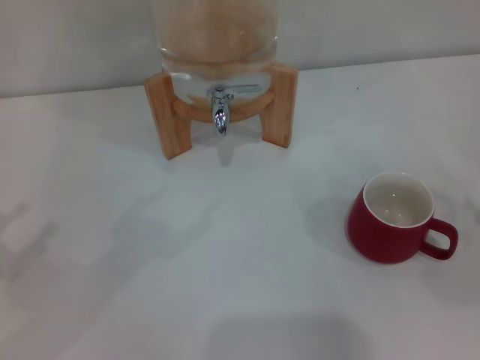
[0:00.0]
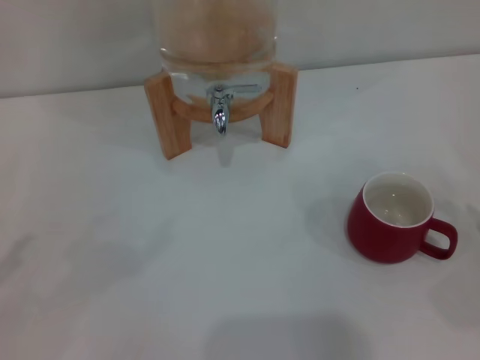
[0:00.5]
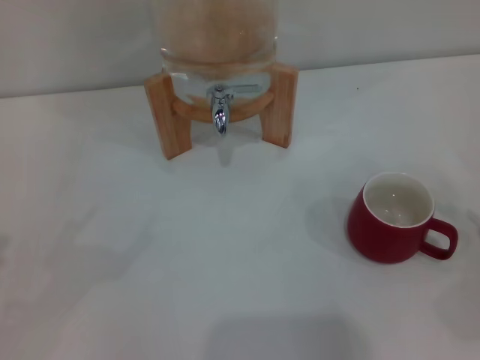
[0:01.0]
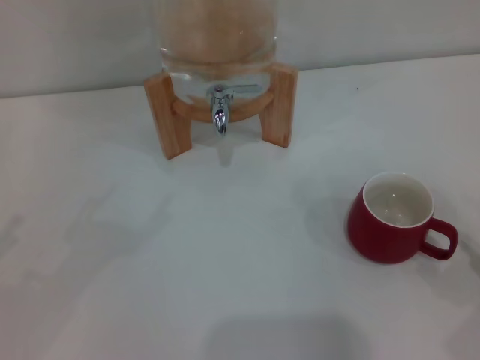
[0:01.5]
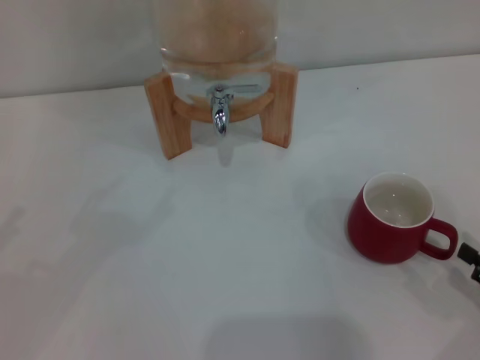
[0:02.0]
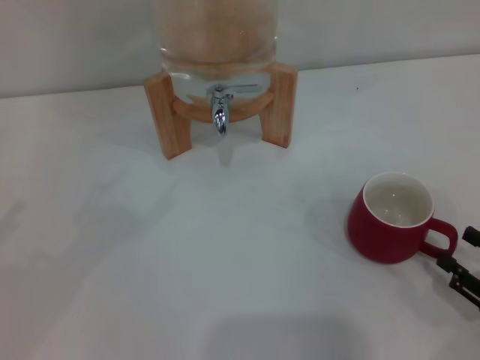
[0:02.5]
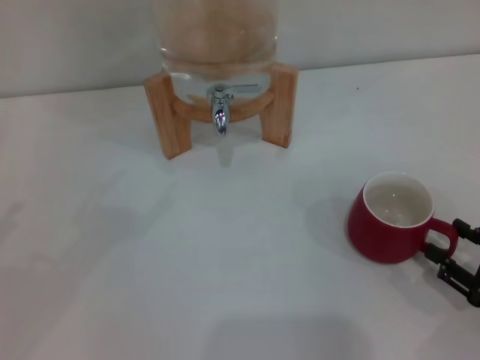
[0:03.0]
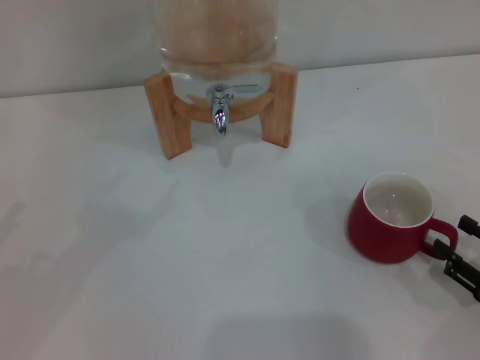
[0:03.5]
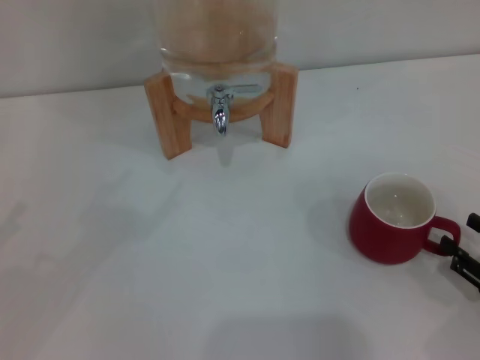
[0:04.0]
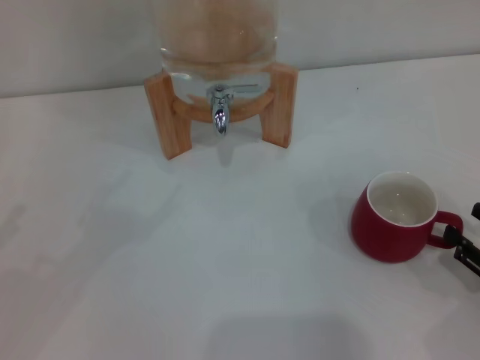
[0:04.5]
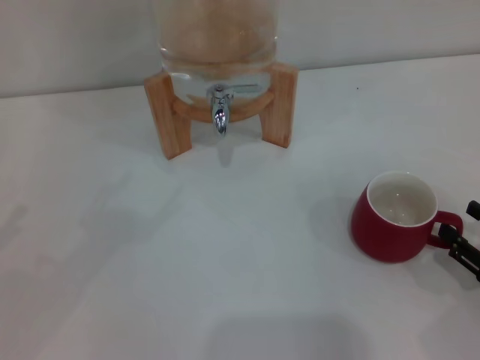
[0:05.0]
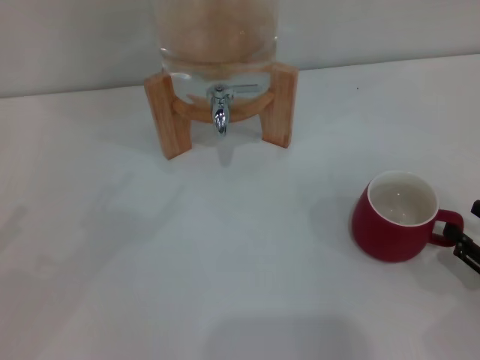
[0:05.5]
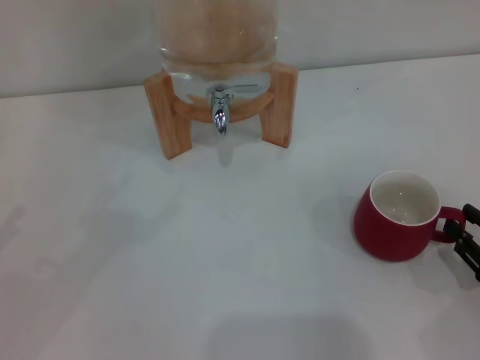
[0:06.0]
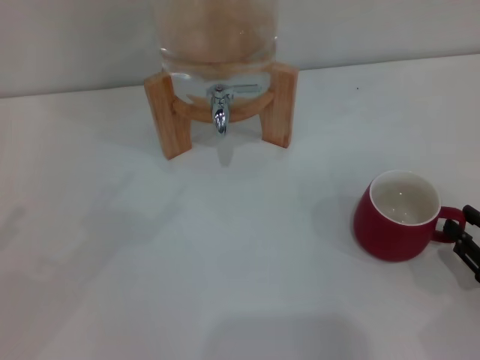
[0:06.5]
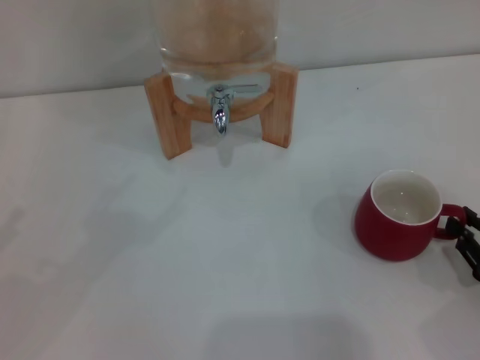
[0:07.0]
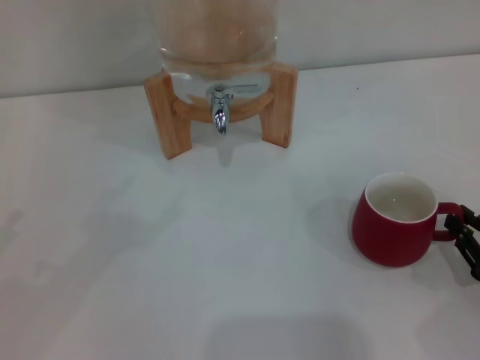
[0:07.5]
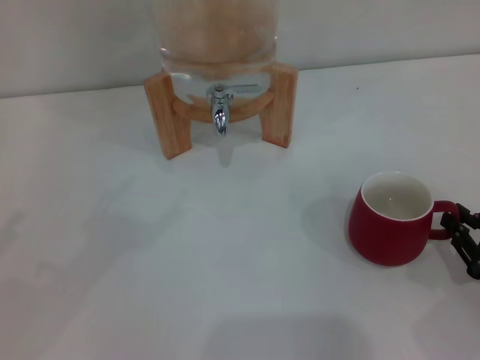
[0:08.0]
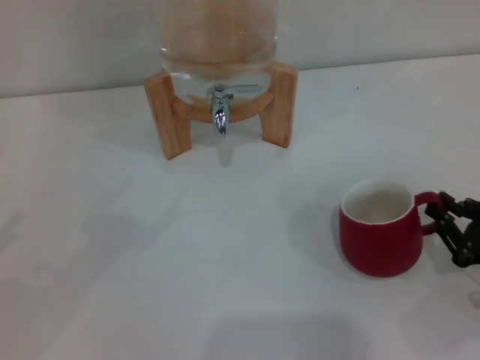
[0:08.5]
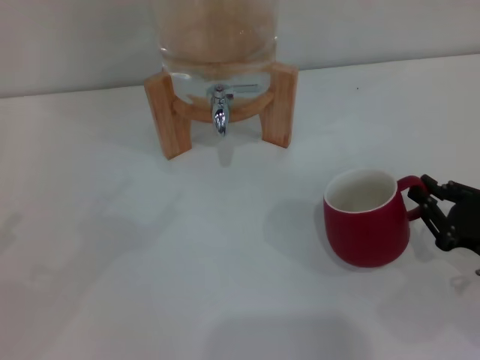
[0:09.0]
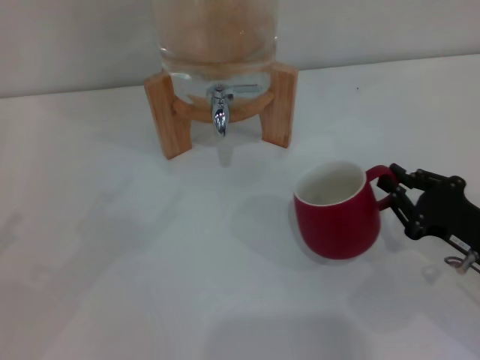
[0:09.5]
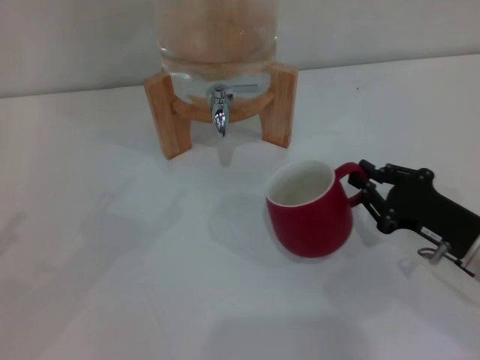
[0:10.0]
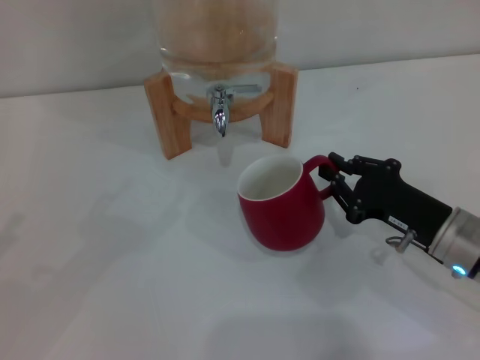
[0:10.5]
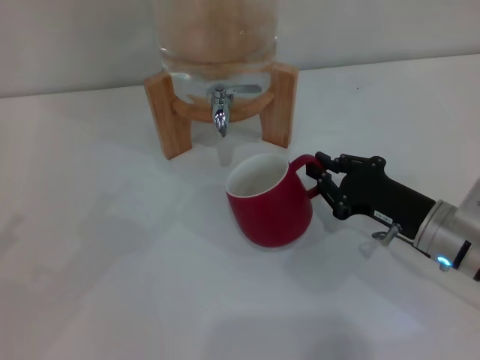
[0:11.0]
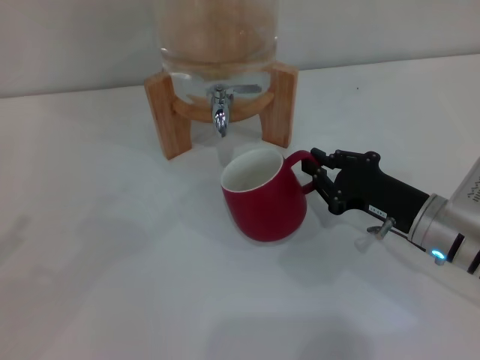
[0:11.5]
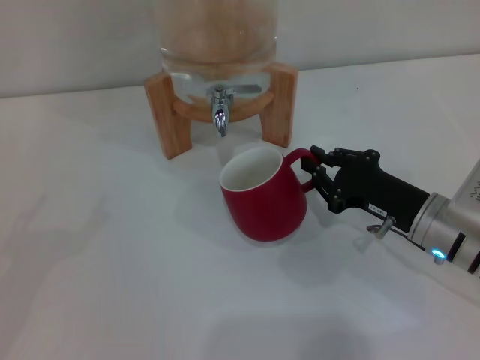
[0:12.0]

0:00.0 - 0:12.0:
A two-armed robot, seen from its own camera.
Task of the whole recording: the right gripper pick up the red cup and place it horizontally under the faucet, the left gripper turn on the faucet to fill the cup, and then turn off the faucet.
0:00.0 - 0:02.0: The right gripper goes roughly 10 cm downward, to the left and backward.
0:02.0 - 0:04.0: The grippers make only small movements.
0:04.0 - 0:06.0: Neither gripper changes place.
0:06.0 - 0:08.0: The right gripper closes up.
0:08.0 - 0:10.0: The right gripper is displaced forward and to the left by approximately 10 cm.
0:10.0 - 0:12.0: The right gripper moves approximately 5 cm.

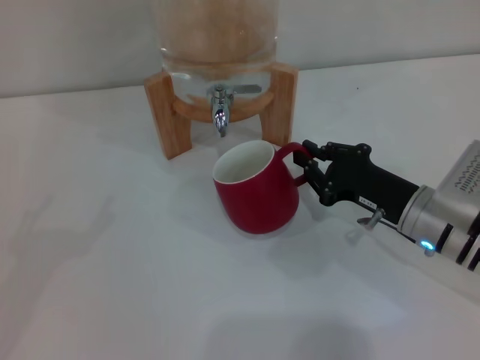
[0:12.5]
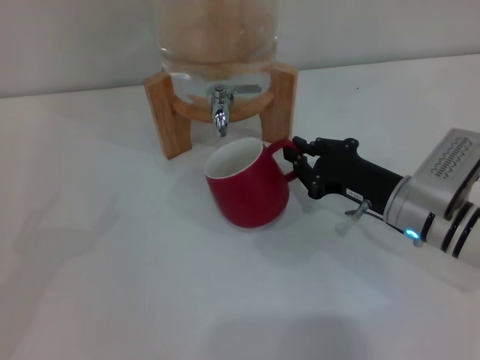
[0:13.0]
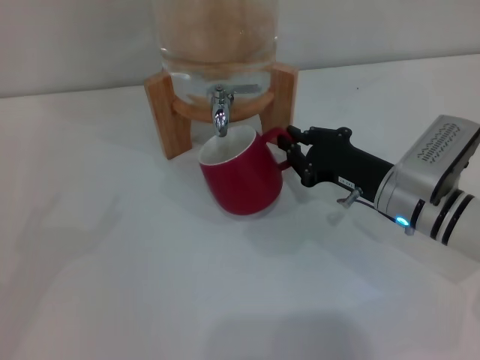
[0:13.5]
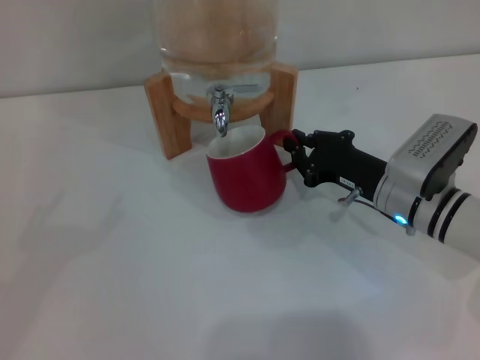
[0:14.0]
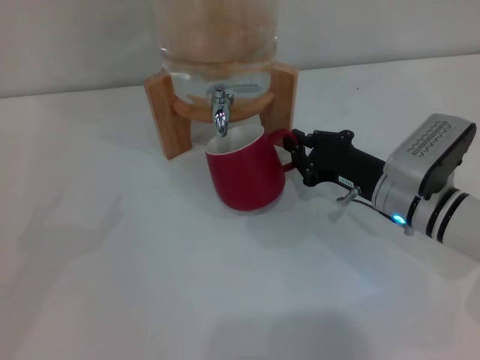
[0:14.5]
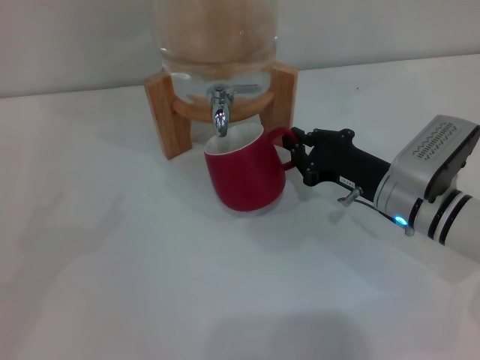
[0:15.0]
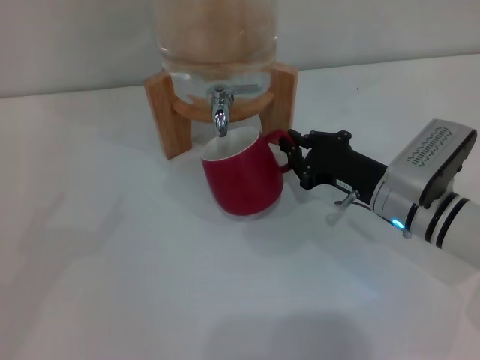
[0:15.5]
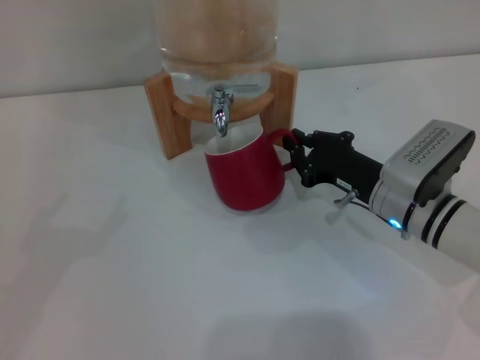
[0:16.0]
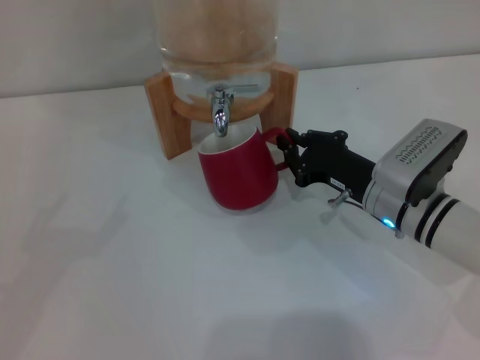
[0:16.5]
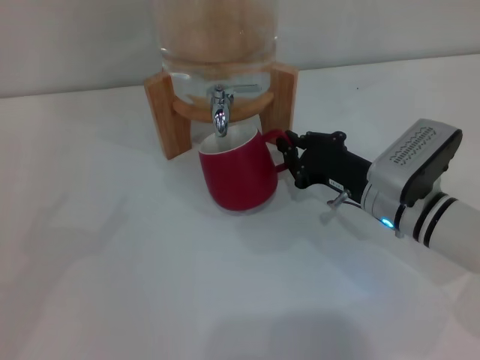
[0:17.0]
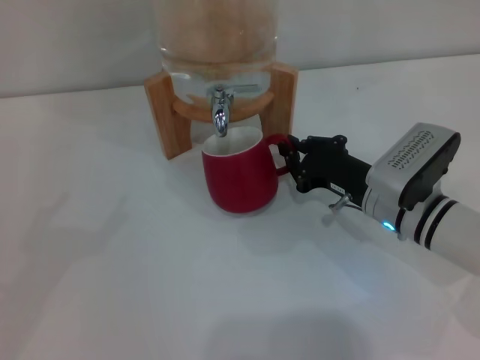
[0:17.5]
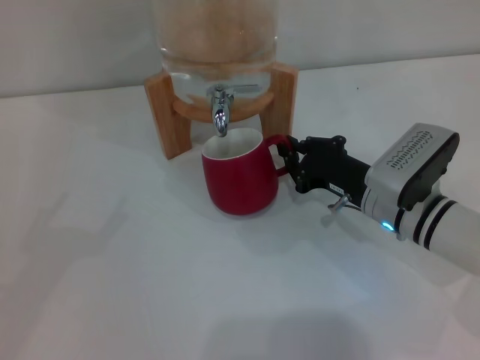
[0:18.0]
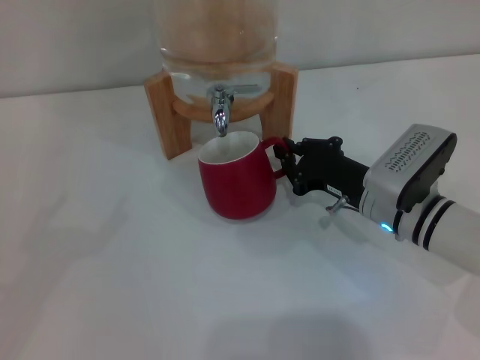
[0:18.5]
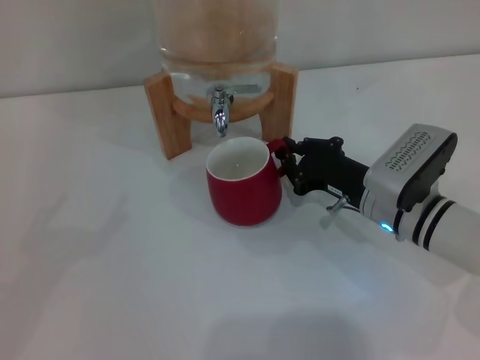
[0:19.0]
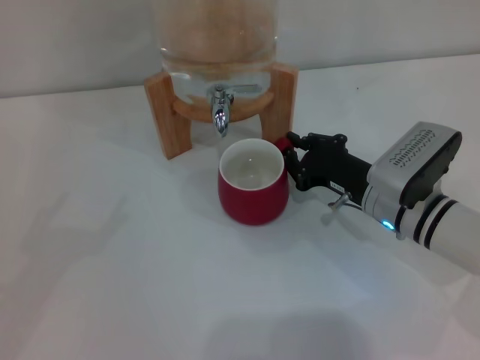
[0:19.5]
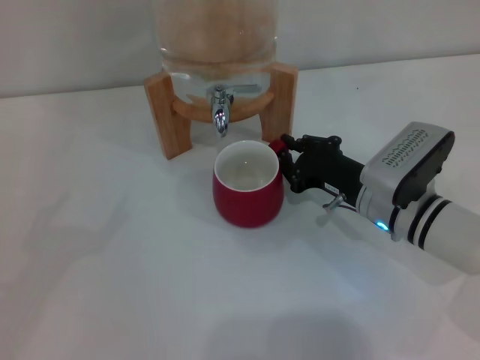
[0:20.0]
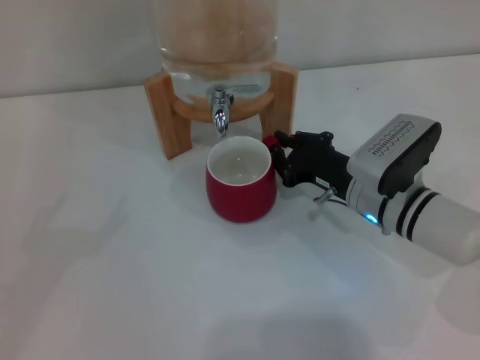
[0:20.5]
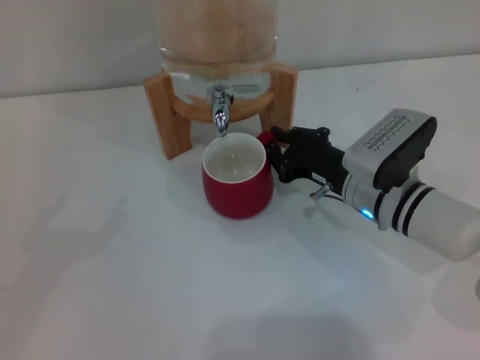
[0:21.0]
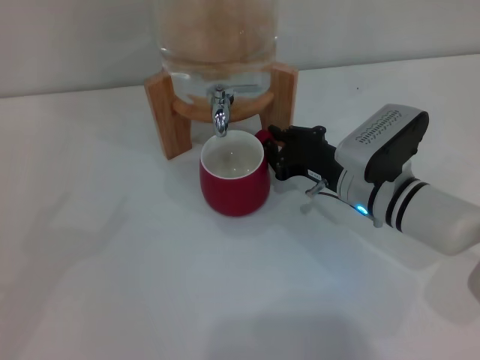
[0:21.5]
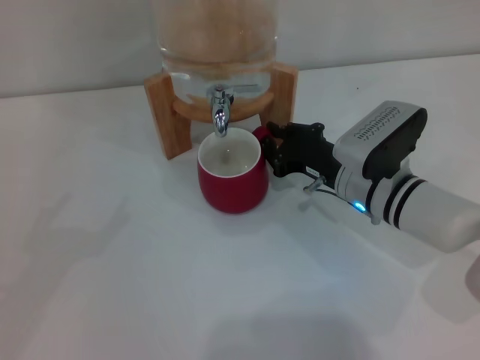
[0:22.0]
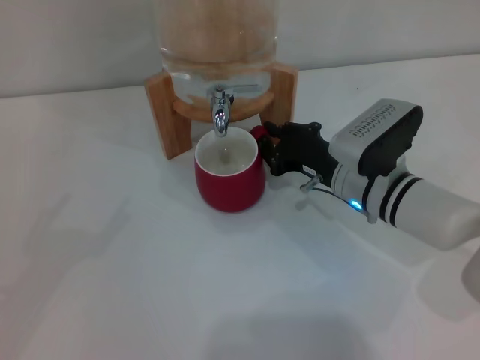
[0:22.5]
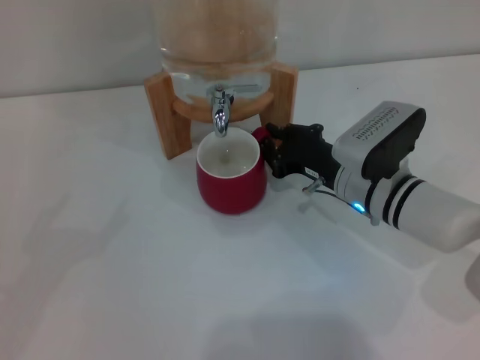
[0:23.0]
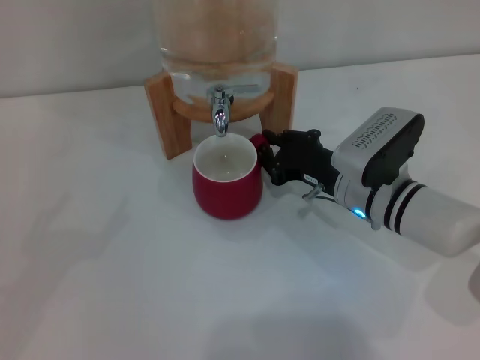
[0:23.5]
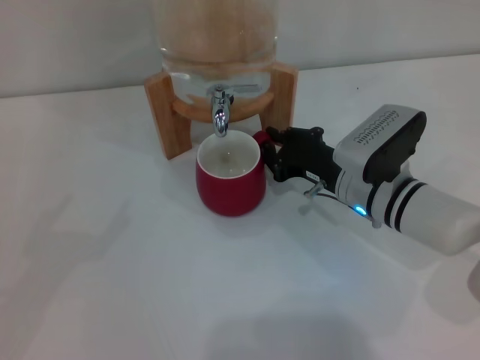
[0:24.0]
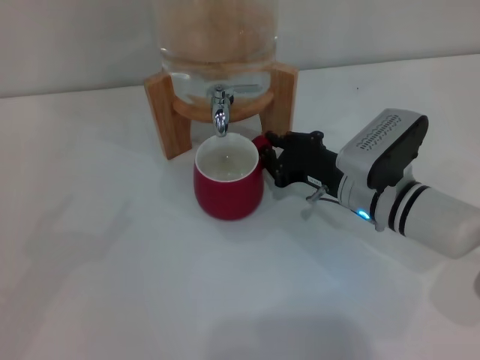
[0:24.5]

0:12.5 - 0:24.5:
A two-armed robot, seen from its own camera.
Task of the whole recording: the right gripper pick up the red cup and place it horizontally under the faucet, the left gripper turn on the faucet to fill the cup, and then turn off the faucet.
0:12.5 - 0:14.5: The grippers make only small movements.
0:14.5 - 0:16.5: Neither gripper changes place.
0:16.5 - 0:18.5: Neither gripper changes place.
0:18.5 - 0:22.5: The grippers stay close to where they were, moving slightly.
0:22.5 - 0:24.5: The two grippers keep their place.

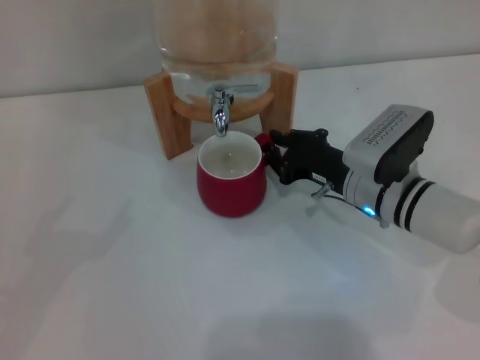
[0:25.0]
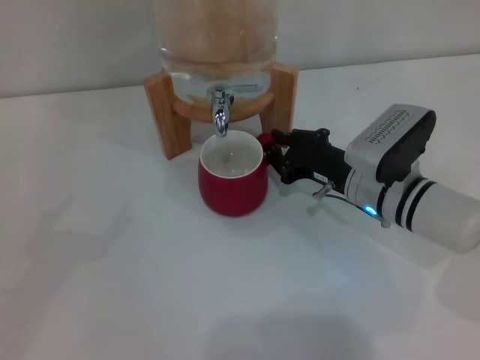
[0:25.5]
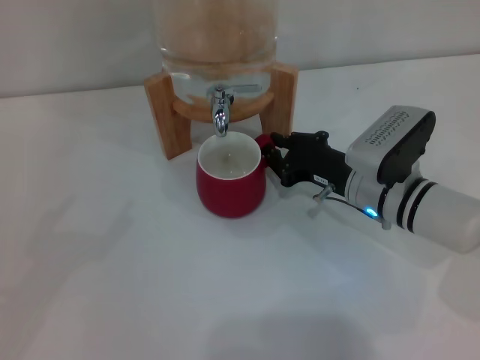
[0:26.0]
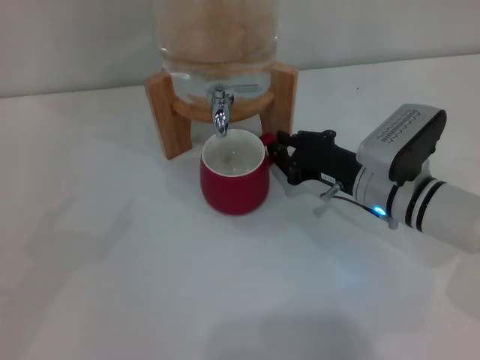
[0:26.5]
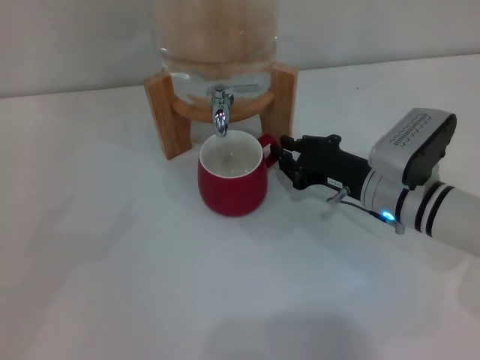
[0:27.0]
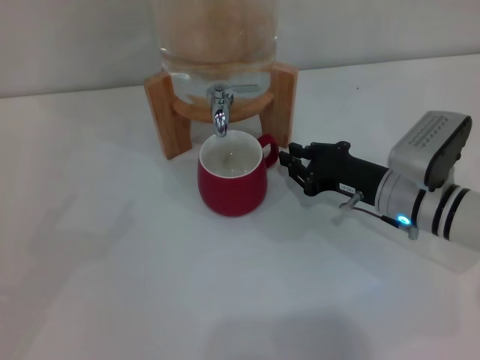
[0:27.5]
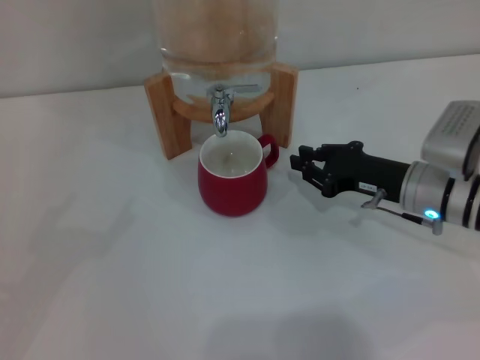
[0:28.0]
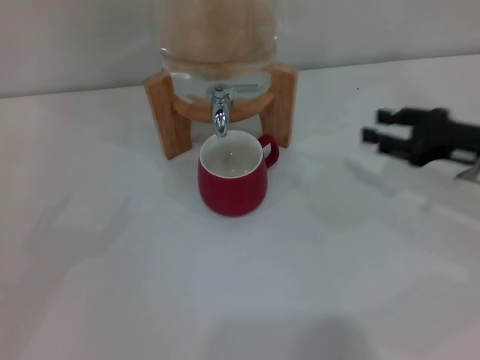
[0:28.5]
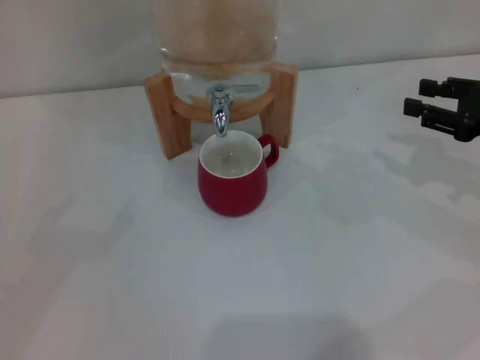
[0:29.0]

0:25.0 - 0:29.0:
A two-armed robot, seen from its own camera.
Task of the whole recording: the right gripper pick up the red cup and place it horizontally under the faucet, the left gripper turn on the faucet to fill the cup, and then turn off the faucet.
Step, 0:25.0 - 0:27.5: Move the cup beneath the water dispenser nozzle with the right gripper.
0:25.0 - 0:27.0: The grippers make only small movements.
0:27.0 - 0:29.0: The right gripper heads to the right and upward, covering some 20 cm, and opens up.
